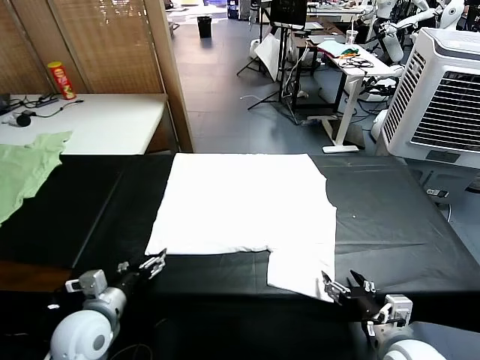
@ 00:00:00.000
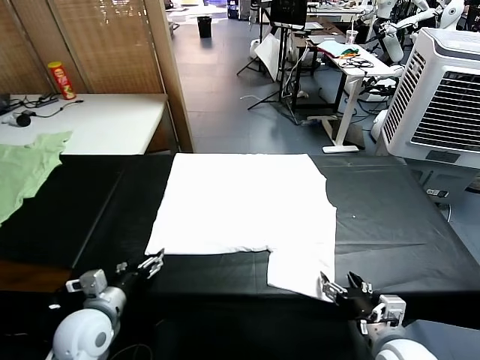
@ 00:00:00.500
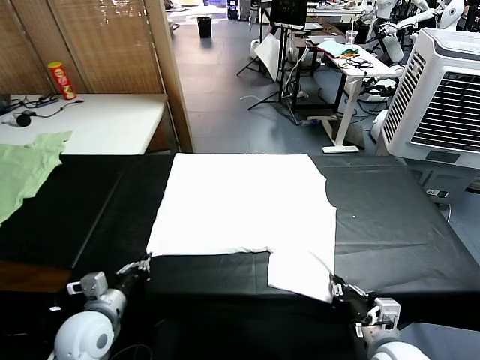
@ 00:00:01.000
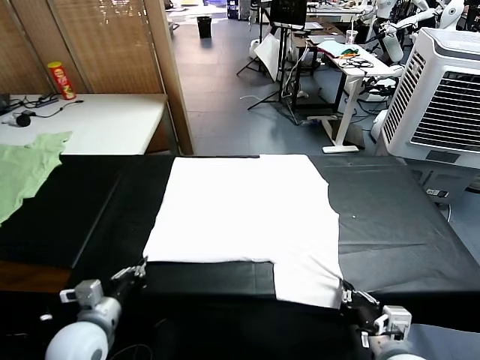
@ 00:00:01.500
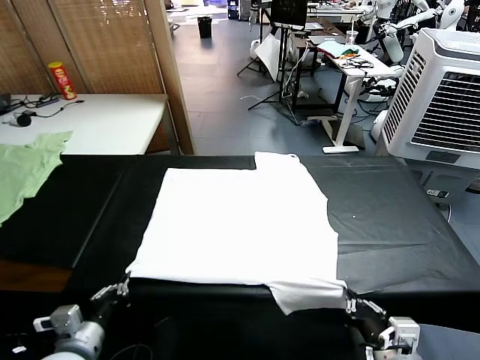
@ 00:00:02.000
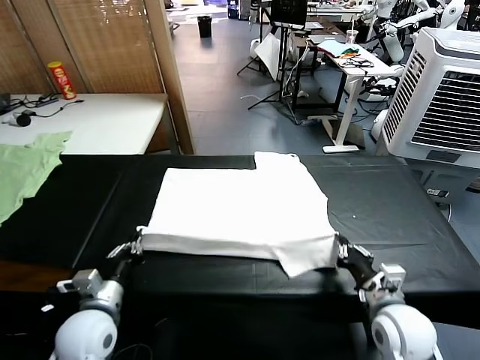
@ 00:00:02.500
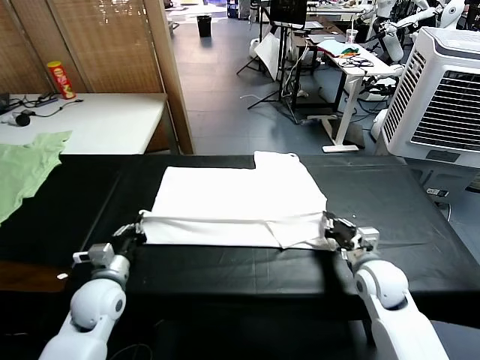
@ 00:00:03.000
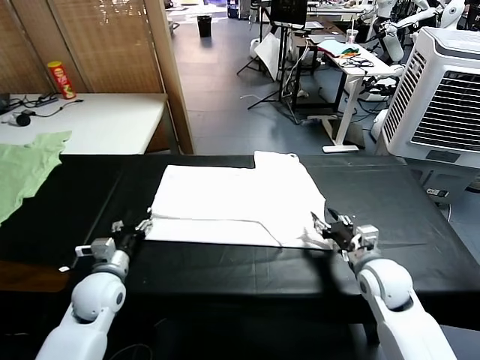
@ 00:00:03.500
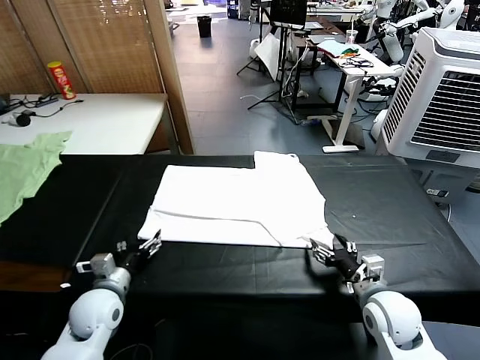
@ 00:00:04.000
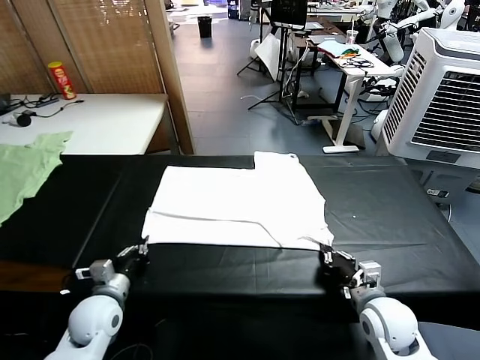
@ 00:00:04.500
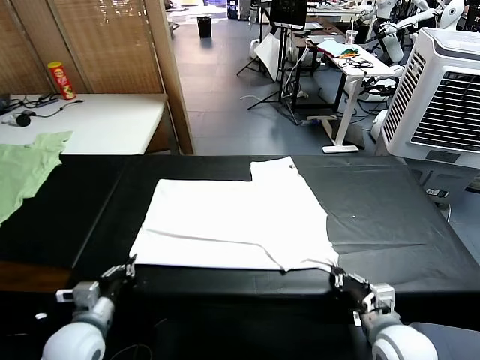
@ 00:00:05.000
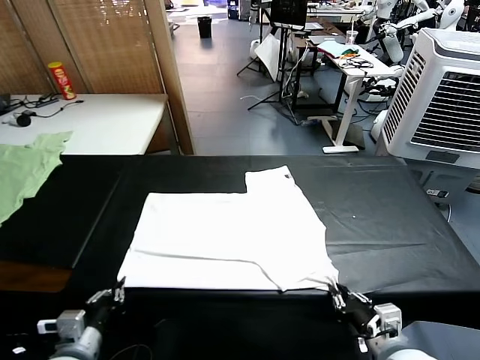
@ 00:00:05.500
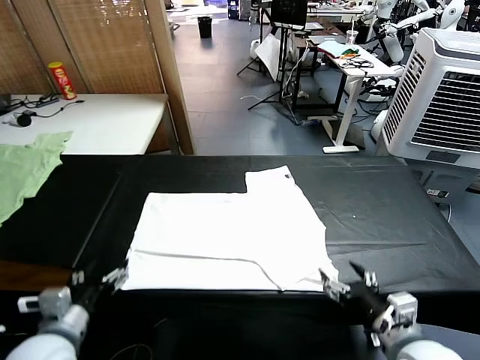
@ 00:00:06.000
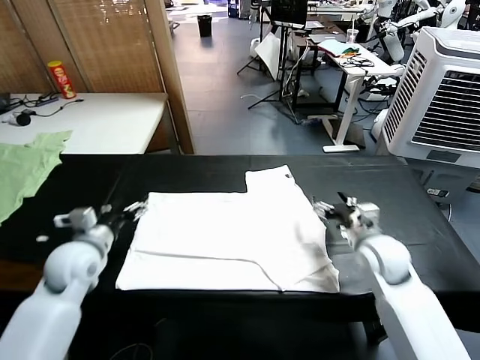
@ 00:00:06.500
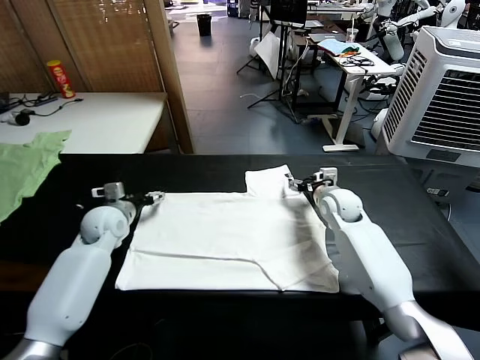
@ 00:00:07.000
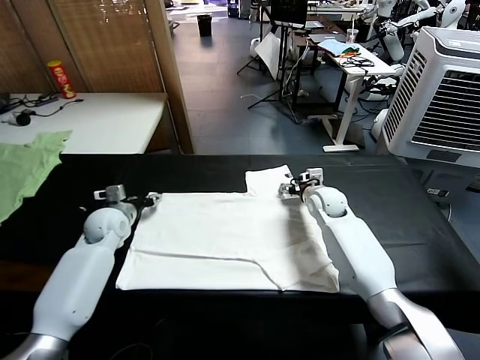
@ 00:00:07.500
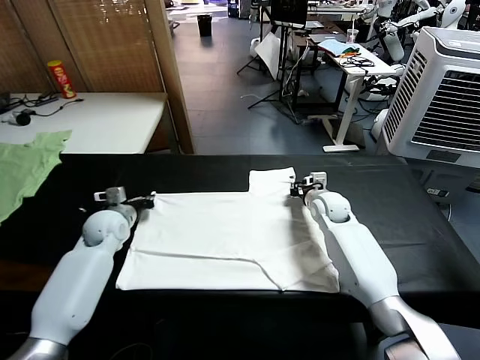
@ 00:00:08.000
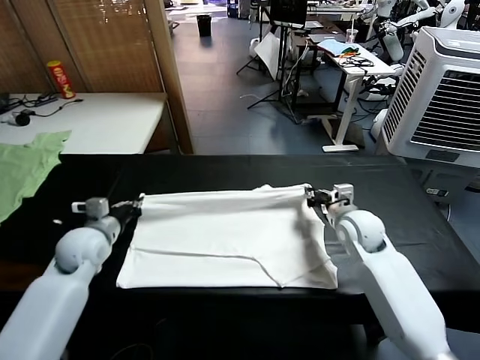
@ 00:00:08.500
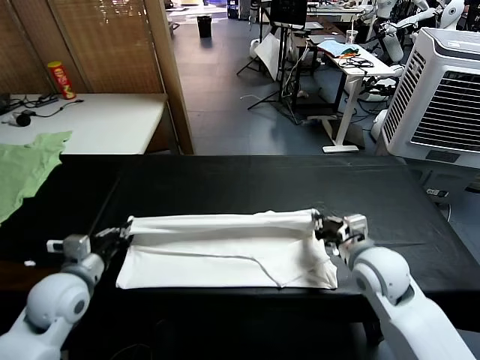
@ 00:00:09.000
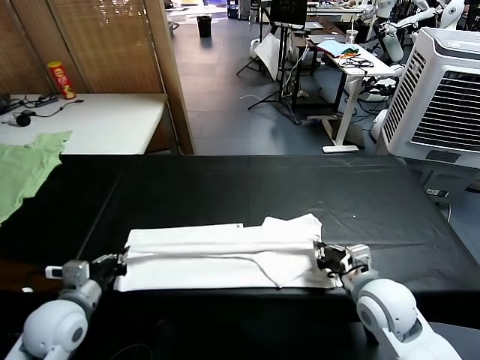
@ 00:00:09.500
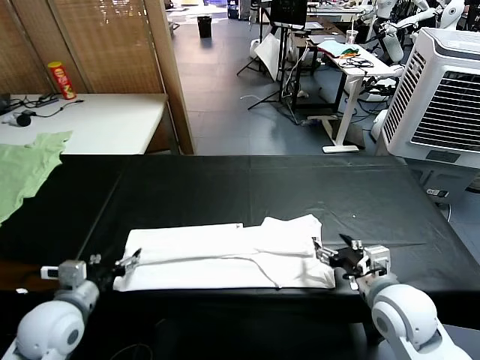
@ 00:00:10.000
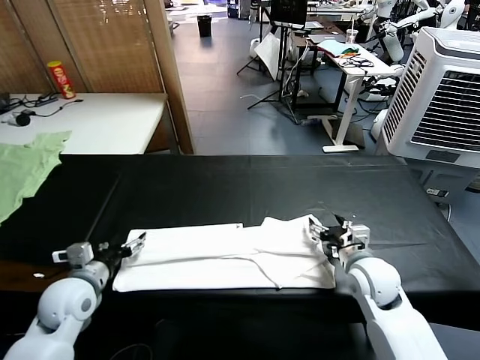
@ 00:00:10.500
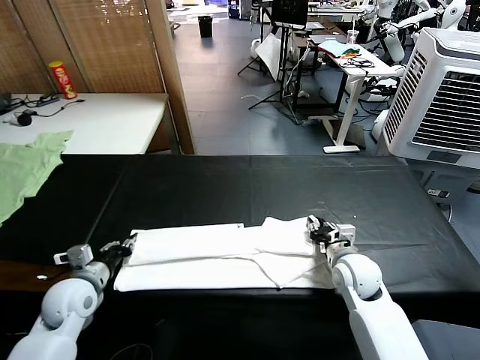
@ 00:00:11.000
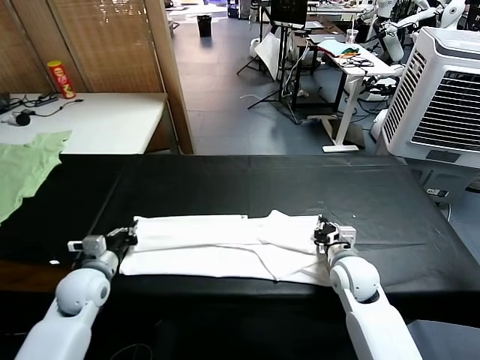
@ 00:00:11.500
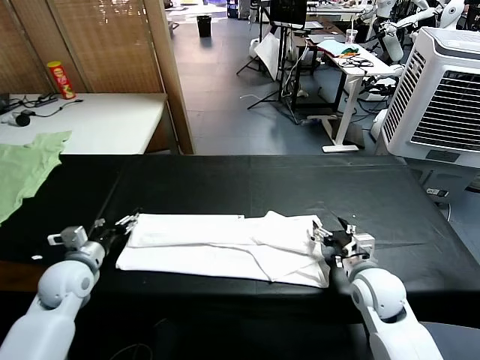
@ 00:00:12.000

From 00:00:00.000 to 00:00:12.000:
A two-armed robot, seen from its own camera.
Task of the whole recording: fold and organize the clothes.
Step, from 00:00:00.000 to 00:00:01.000: use both grippers simultaneously to clamp the lower edge of the clothing fabric.
Step, from 00:00:01.500 to 00:00:03.500: use both grippers to drag the lower edge of the fabric forward and fold it over the upper edge.
Step, from 00:00:04.000 to 00:00:05.500: Drag the clothes downward with both gripper.
Step, from 00:00:06.000 to 00:00:07.500: use both grippers simultaneously to clamp the upper edge of the clothing fabric.
Step, from 00:00:08.000 to 00:00:09.500: use both grippers to drag the upper edge of the fabric backward and fold it over the lower edge.
From 00:00:02.000 to 00:00:04.000: The two grippers go some 10 cm forward and downward. The right gripper opens up; the left gripper opens up.
From 00:00:04.000 to 00:00:06.000: The left gripper goes roughly 15 cm upward and backward, and closes and opens again; the right gripper travels upward by about 10 cm, travels backward and back again, roughly 10 cm each way, and opens.
From 00:00:06.000 to 00:00:08.000: The grippers both shift forward by roughly 30 cm. The left gripper closes up. Meanwhile the right gripper closes.
From 00:00:08.000 to 00:00:10.000: The grippers both shift backward by about 25 cm. The left gripper opens. Meanwhile the right gripper opens.
From 00:00:10.000 to 00:00:12.000: The left gripper moves forward, approximately 10 cm, and closes and opens again; the right gripper moves roughly 10 cm forward and comes back, and closes, then opens again.

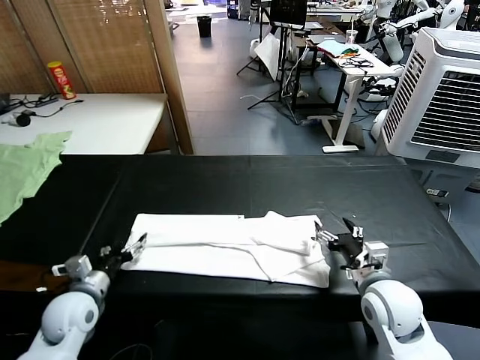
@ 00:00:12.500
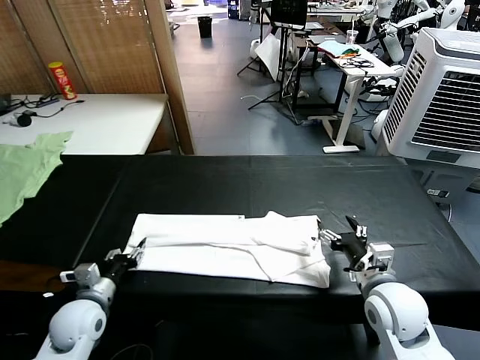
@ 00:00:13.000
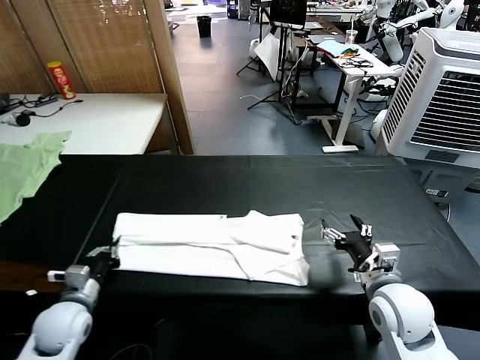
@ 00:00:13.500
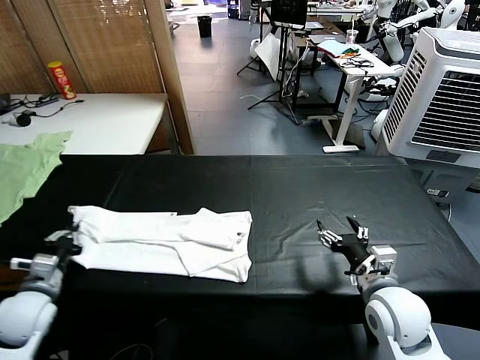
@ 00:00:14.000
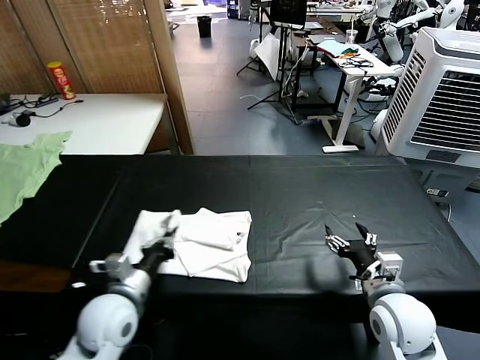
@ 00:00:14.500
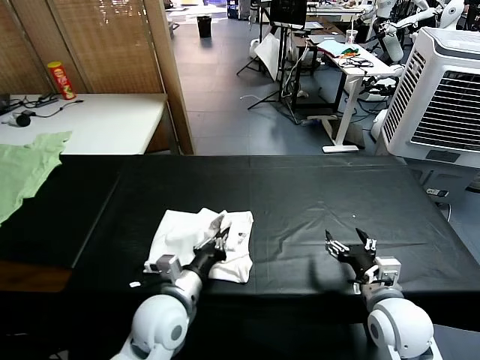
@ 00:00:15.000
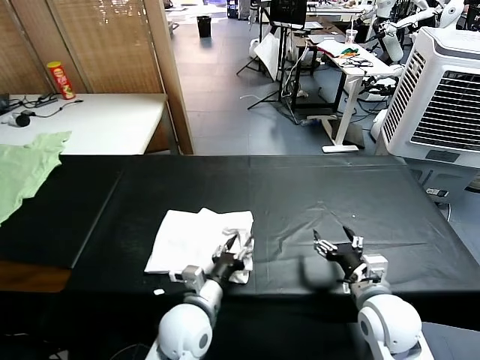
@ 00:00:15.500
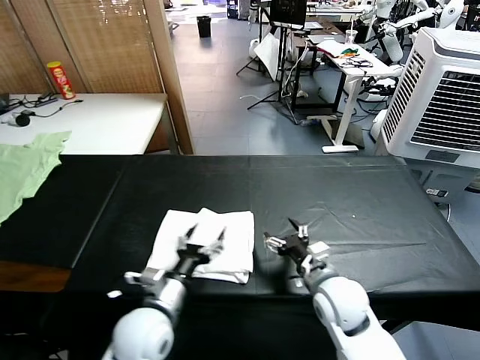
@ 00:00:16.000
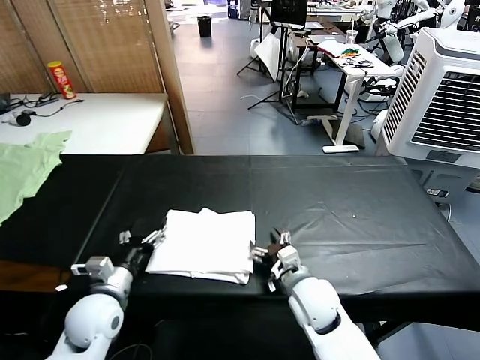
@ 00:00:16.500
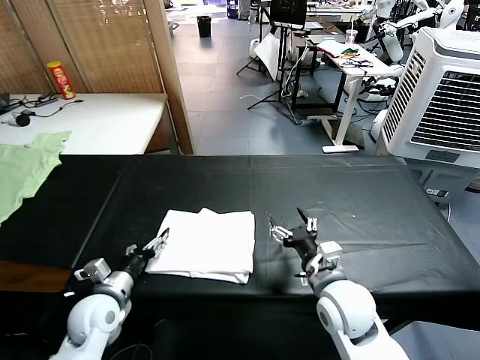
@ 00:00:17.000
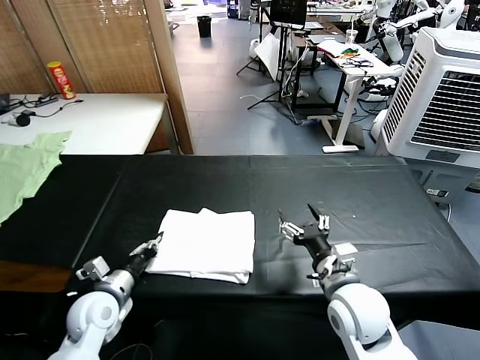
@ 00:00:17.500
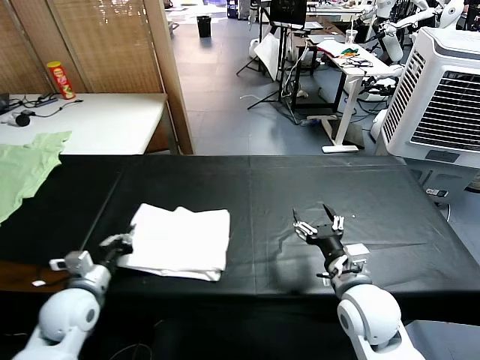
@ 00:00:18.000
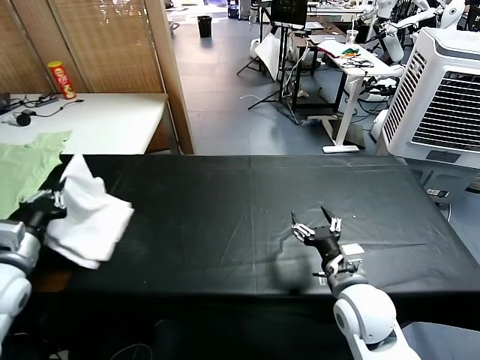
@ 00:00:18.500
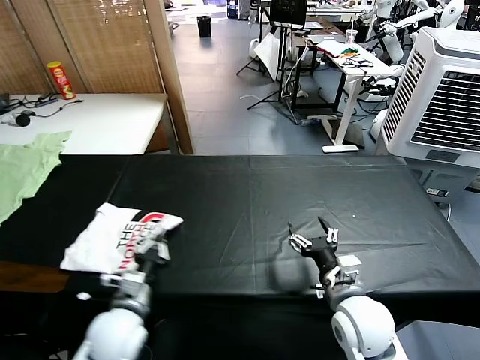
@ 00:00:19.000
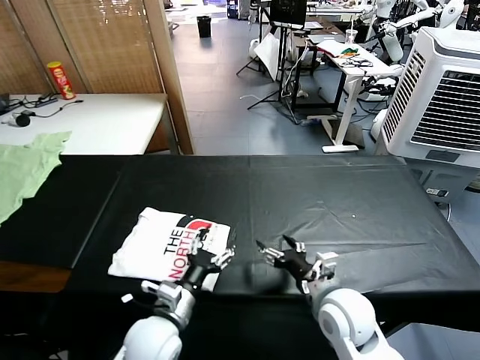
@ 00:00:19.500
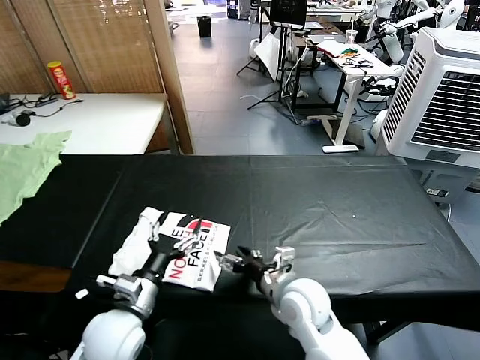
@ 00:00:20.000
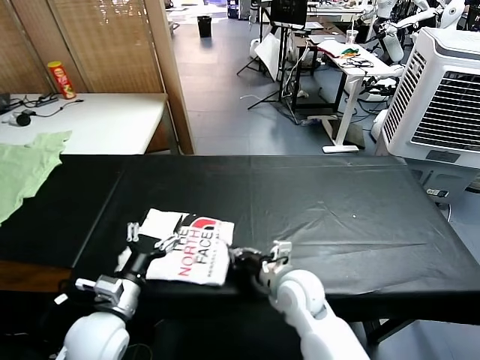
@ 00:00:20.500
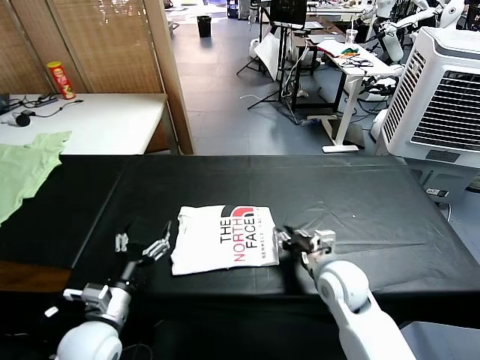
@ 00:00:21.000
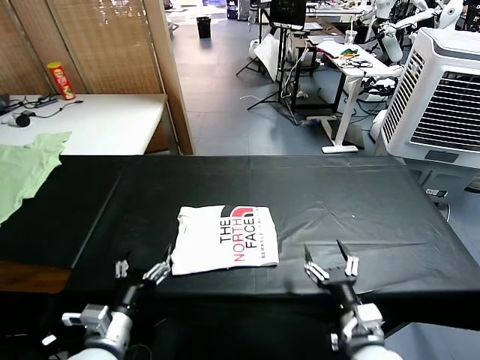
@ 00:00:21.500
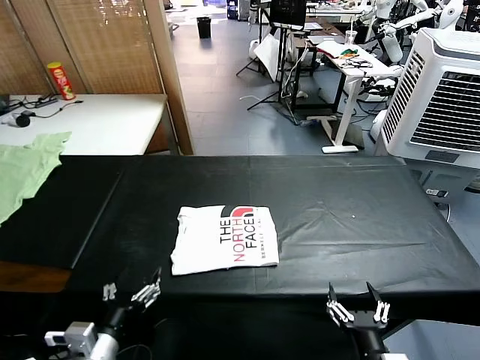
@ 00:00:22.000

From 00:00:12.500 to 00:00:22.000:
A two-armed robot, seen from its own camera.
Task of the whole recording: fold and organize the clothes.
Step, from 00:00:13.500 to 00:00:15.500: use the left gripper to drag the left edge of the fabric to the left and folds it over the right edge.
Step, from 00:00:16.000 to 00:00:19.000: Flip the folded clothes over with left gripper.
Step, from 00:00:19.500 to 00:00:21.000: Drag the clothes to the center of the table.
From 00:00:12.500 to 00:00:14.500: The left gripper goes roughly 10 cm to the right, and closes up.
From 00:00:14.500 to 00:00:16.500: The left gripper travels to the right and back again, some 15 cm each way, and opens its fingers. The right gripper moves to the left, downward and forward, roughly 15 cm.
From 00:00:16.500 to 00:00:18.000: The right gripper moves to the right and upward, roughly 10 cm. The left gripper changes place by approximately 5 cm, and closes its fingers.
From 00:00:18.000 to 00:00:20.000: The right gripper moves to the left, some 10 cm; the left gripper goes left and right, approximately 25 cm each way, reversing 2 times, and opens.
From 00:00:20.000 to 00:00:22.000: The left gripper heads backward, covering some 10 cm, while the right gripper shifts approximately 25 cm backward and to the right, and closes and opens again.
